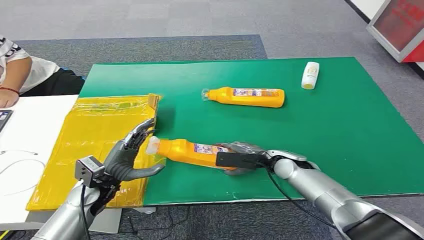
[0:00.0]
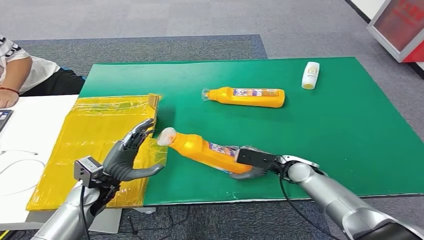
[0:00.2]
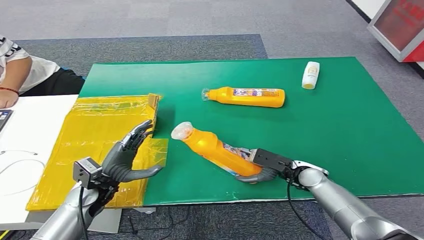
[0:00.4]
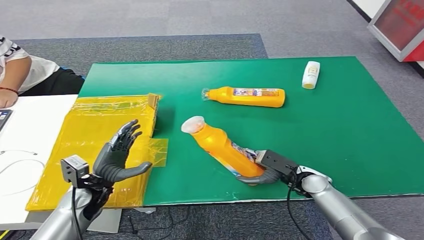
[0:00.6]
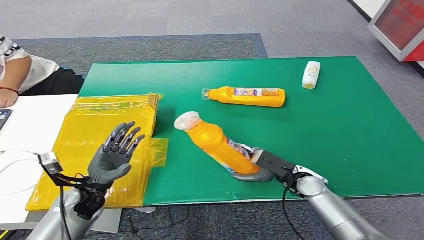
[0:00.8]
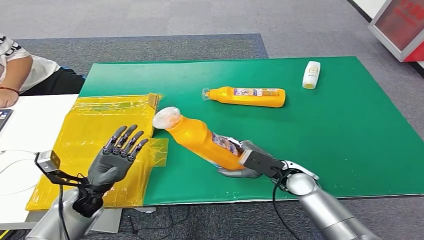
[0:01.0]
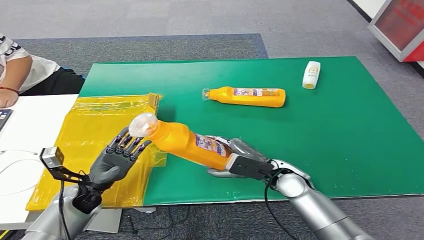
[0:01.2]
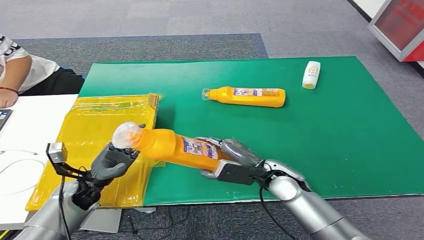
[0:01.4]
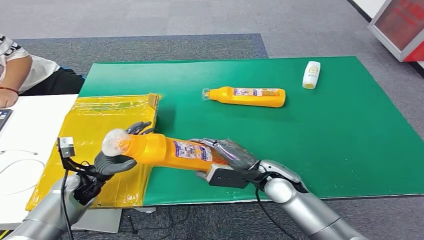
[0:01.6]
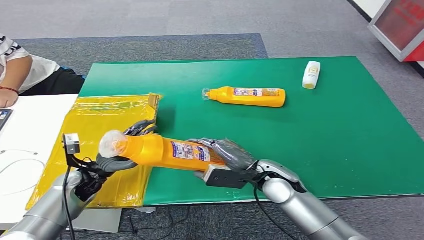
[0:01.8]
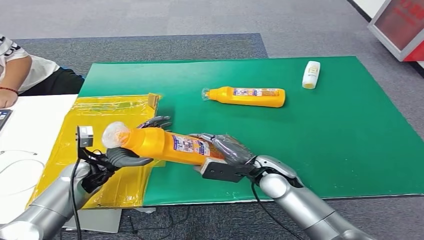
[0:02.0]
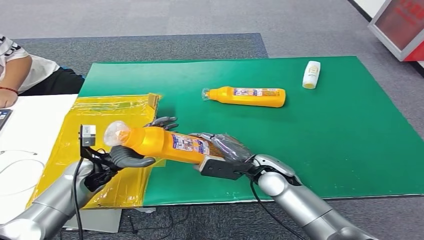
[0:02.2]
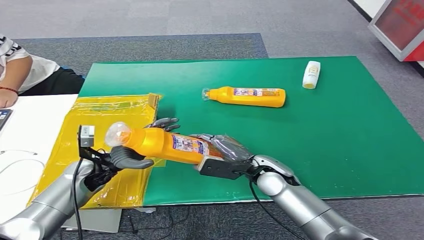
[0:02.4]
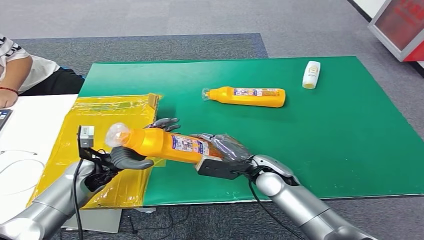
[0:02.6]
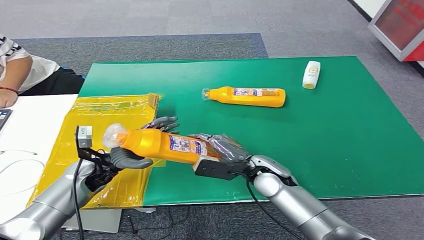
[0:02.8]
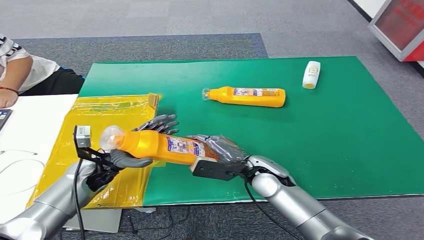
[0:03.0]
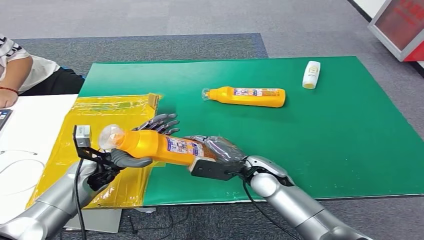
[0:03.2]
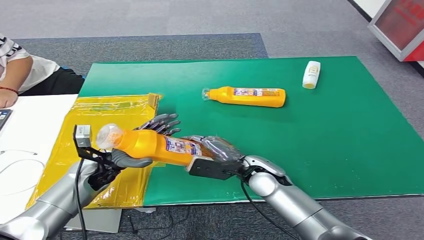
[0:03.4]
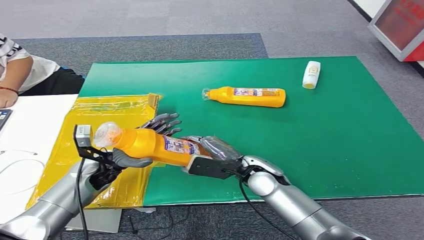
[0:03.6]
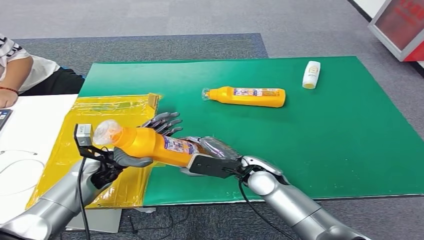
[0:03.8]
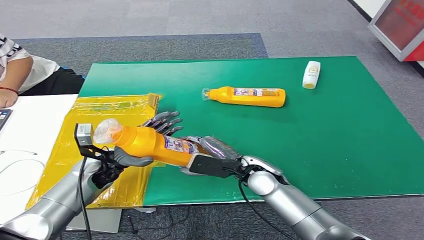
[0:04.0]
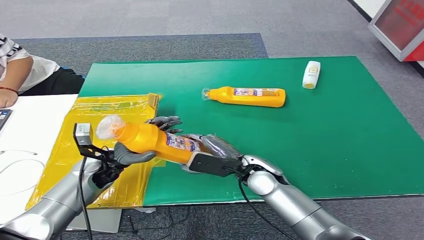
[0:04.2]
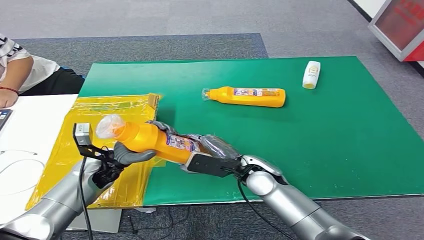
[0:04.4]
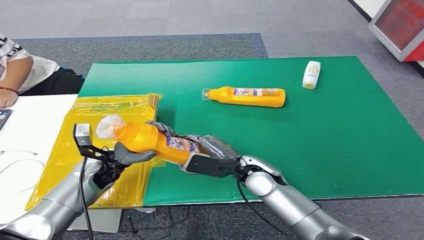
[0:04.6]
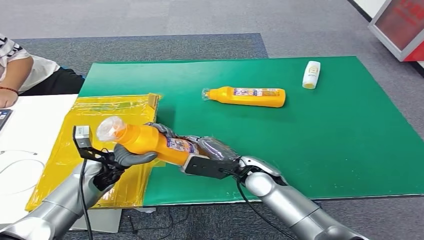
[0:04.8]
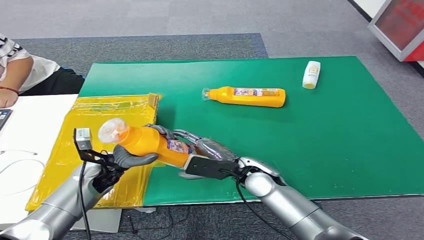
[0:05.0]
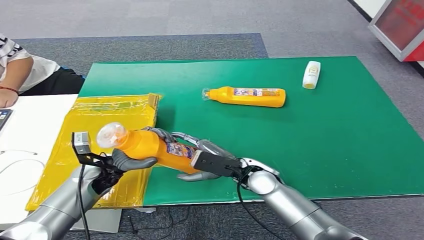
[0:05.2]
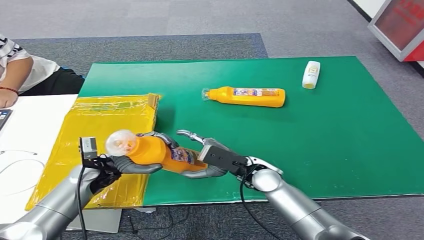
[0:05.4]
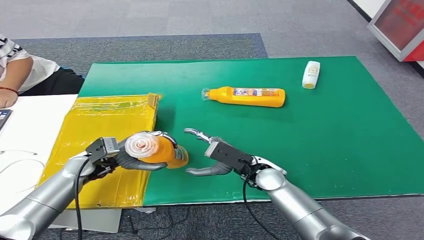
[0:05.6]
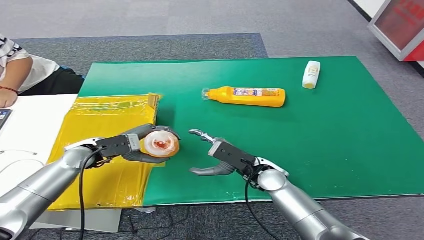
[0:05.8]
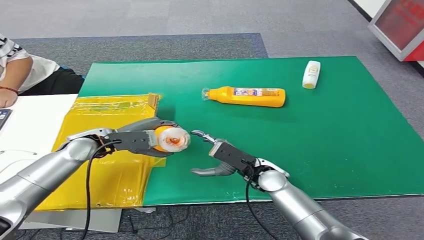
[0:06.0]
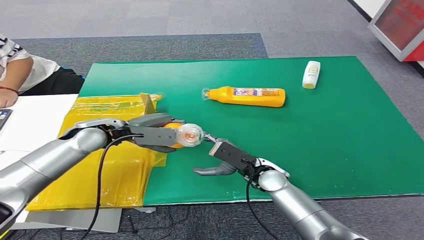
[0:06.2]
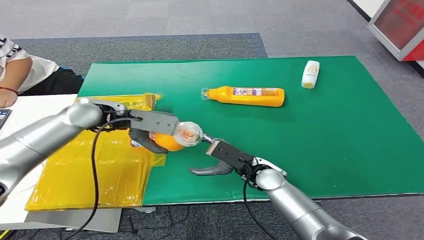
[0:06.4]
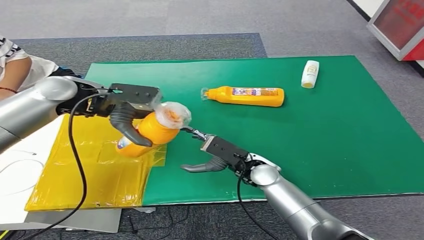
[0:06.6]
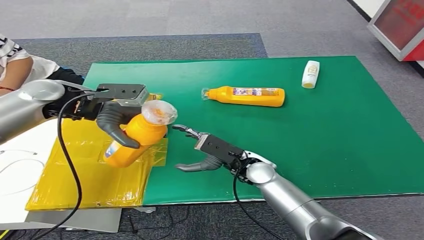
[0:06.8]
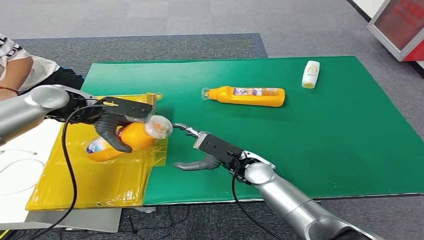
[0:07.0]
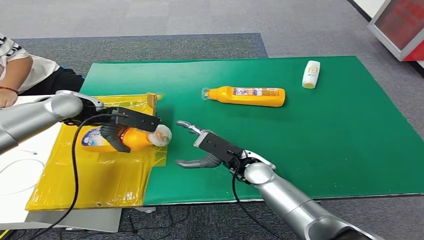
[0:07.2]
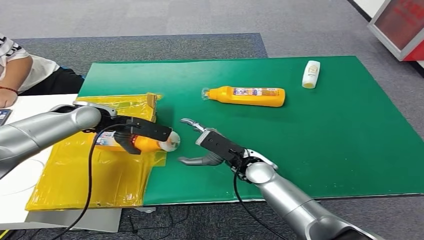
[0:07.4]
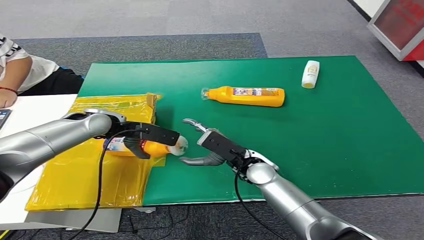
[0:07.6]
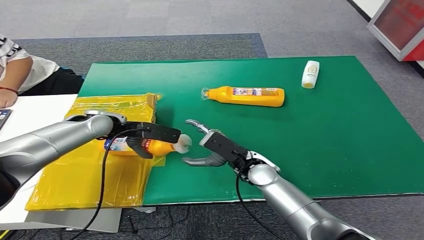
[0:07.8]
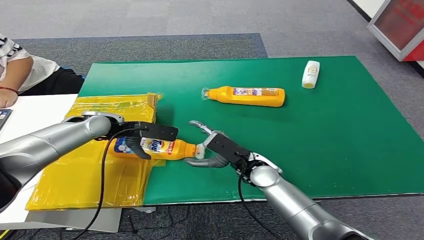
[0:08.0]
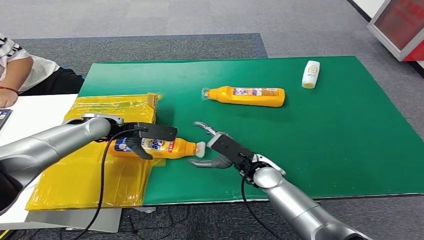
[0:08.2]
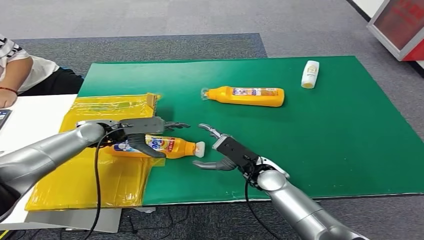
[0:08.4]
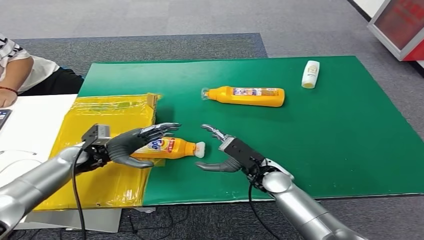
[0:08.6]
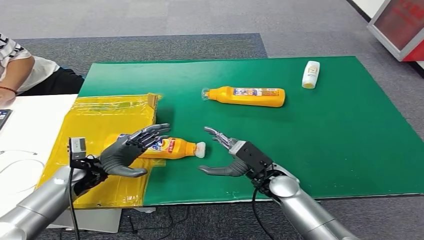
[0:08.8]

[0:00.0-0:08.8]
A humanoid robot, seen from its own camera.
Step, 0:00.0 to 0:02.4: Pick up the bottle from the table.
Step, 0:02.6 to 0:08.8: Turn the bottle to the front side.
0:01.4 to 0:03.0: The left hand shifts by some 5 cm.
0:03.0 to 0:04.4: There are only small adjustments of the hands.
0:04.4 to 0:05.8: The left hand moves some 5 cm.
0:05.8 to 0:07.4: The left hand travels upward and forward by approximately 10 cm.
0:07.4 to 0:08.8: The left hand heads downward and backward, covering about 20 cm. Meanwhile the right hand changes place by some 5 cm.
